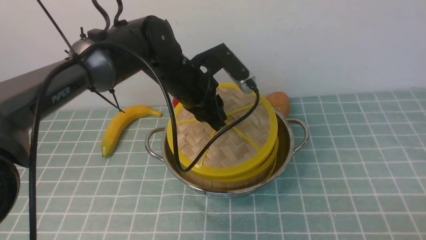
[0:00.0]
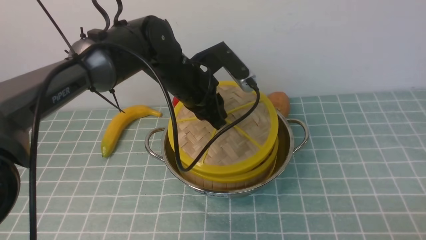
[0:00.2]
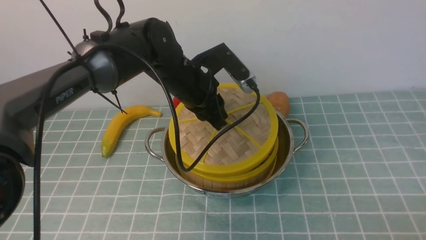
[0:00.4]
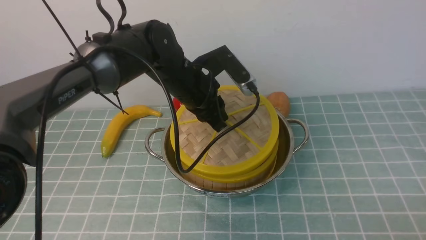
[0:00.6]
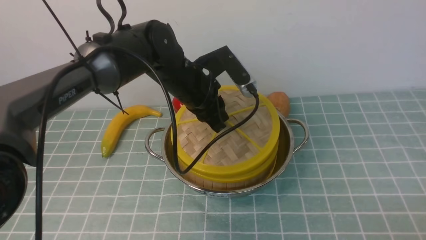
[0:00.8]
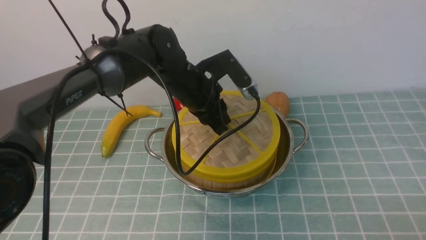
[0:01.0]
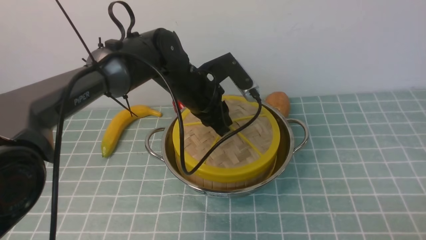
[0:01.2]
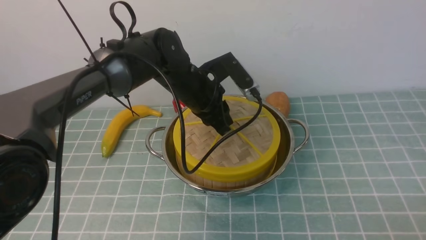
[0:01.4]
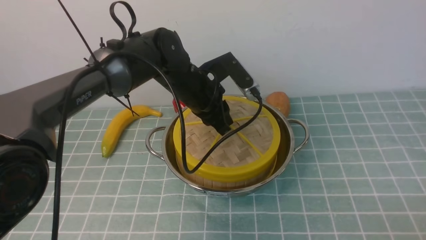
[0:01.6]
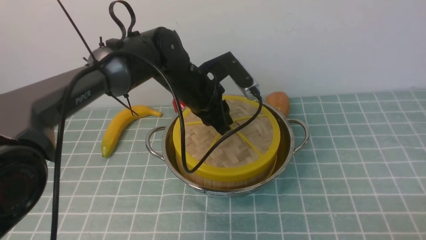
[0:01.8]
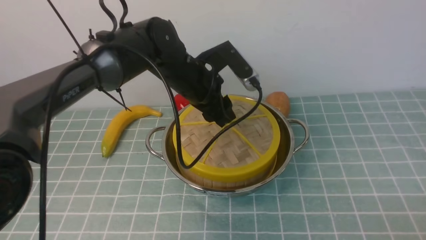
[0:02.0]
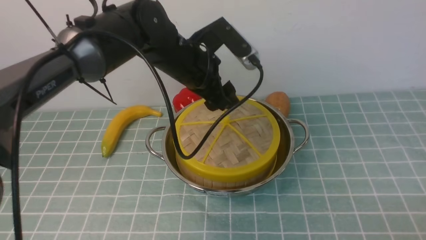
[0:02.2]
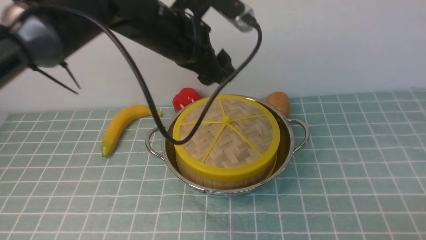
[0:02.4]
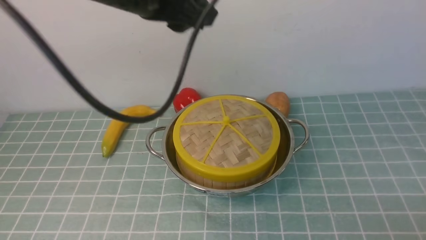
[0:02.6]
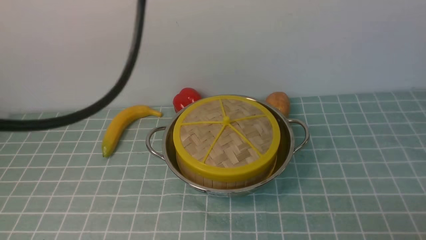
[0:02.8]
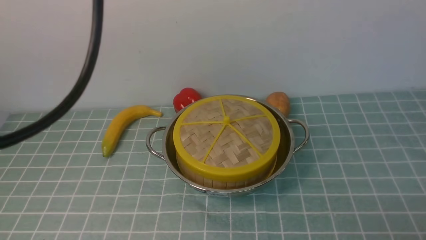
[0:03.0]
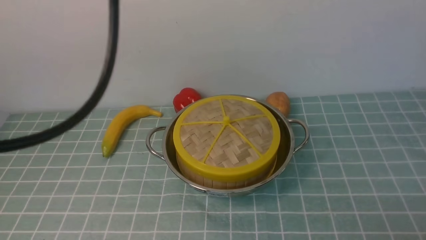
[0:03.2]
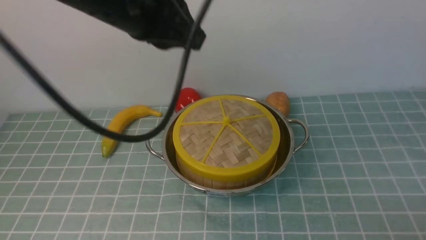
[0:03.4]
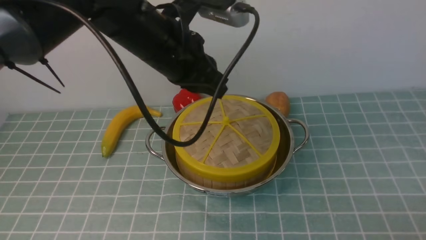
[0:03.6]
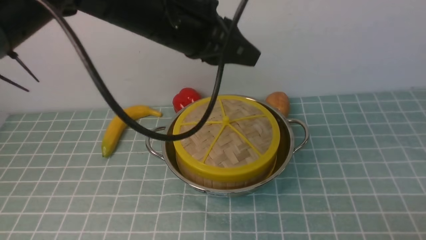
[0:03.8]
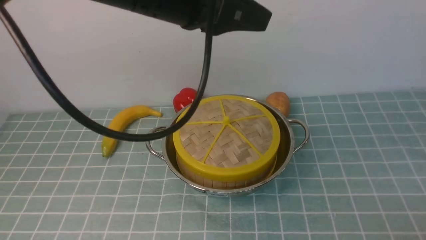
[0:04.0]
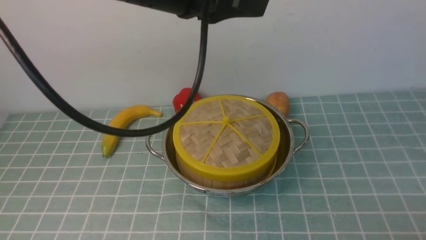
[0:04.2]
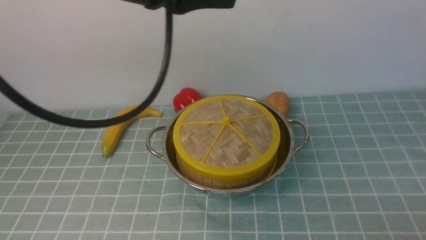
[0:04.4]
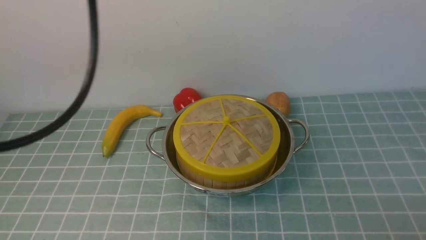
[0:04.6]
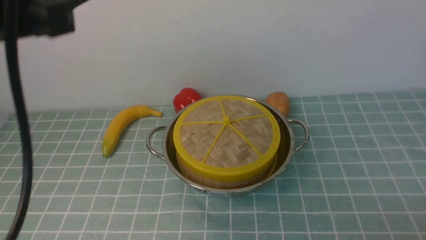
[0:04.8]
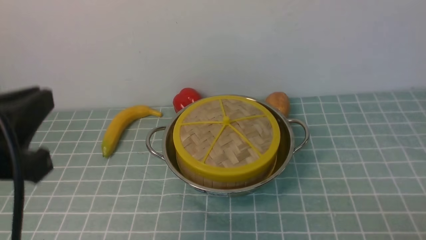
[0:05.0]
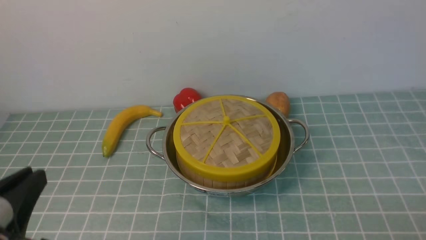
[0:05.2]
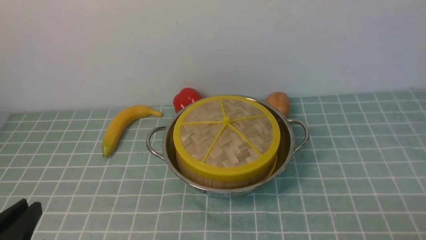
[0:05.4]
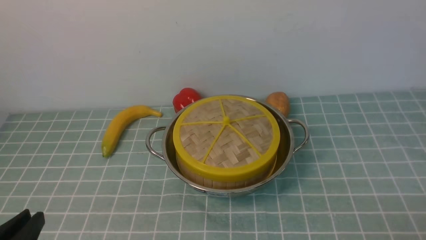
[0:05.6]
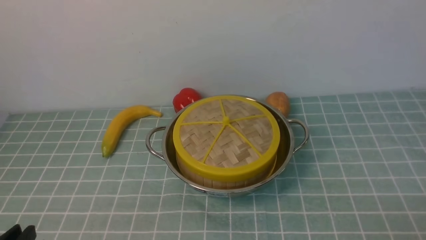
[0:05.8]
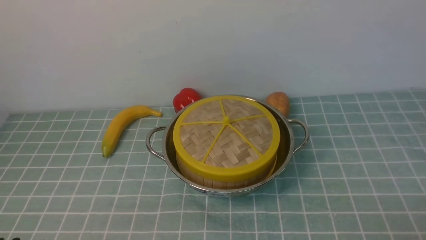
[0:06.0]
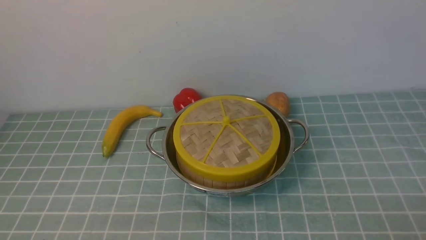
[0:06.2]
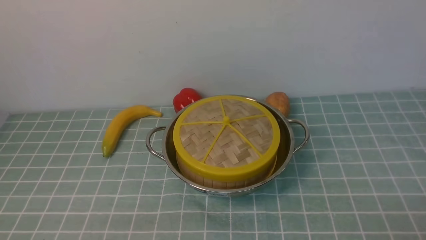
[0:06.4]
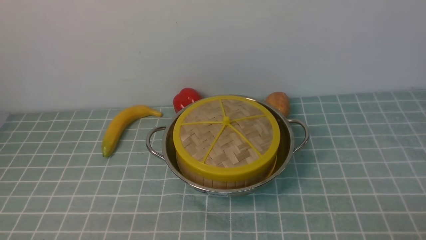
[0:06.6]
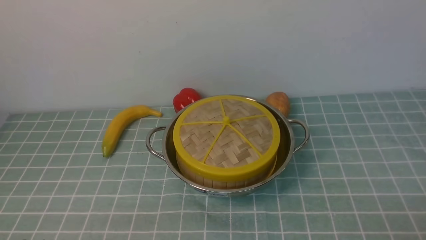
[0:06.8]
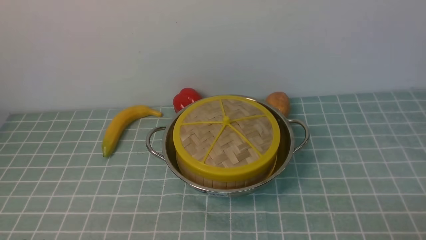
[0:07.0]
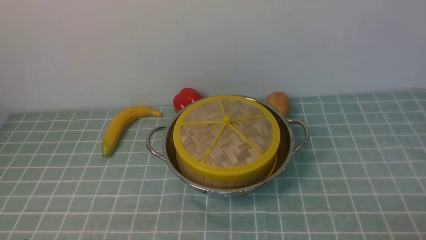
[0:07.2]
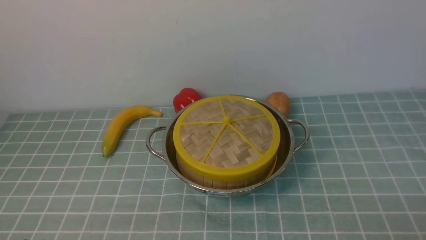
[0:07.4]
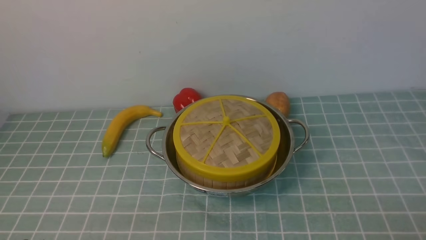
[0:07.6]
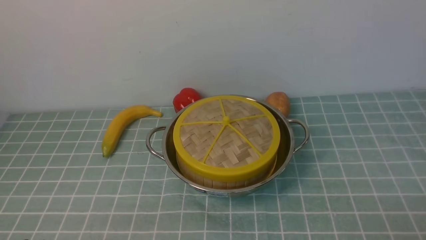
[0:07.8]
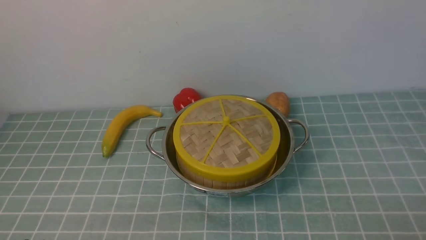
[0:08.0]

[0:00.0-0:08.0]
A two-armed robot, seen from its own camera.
Task of the whole recording: place the steamer in the pot on the blue tablecloth, and put the lid on the steamer.
Step, 0:00.0 to 0:02.6: use the left arm to place the steamer lid on the steamer.
0:00.0 to 0:01.6: The grippers make only small movements.
0:01.6 to 0:03.2: The left gripper shifts about 30 cm upward and backward, and closes up.
0:03.2 to 0:04.8: The left gripper travels backward and to the left by roughly 10 cm.
0:04.8 to 0:06.4: The left gripper shifts roughly 30 cm downward and backward.
0:06.4 to 0:08.0: Both grippers stay about where they are.
